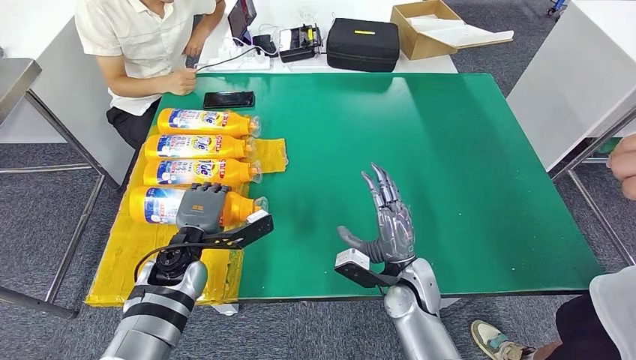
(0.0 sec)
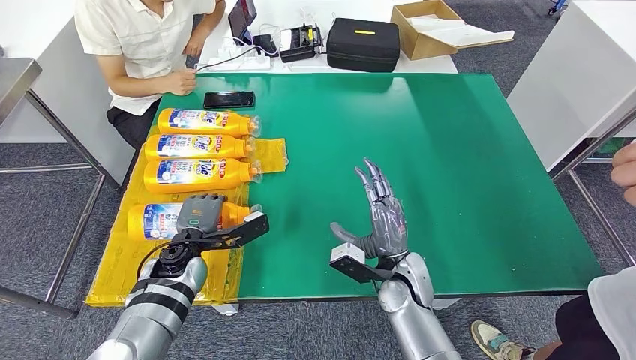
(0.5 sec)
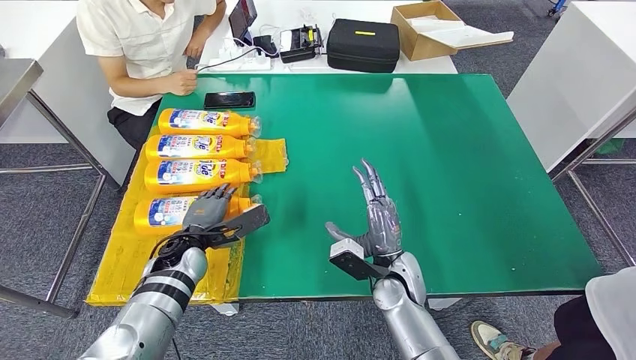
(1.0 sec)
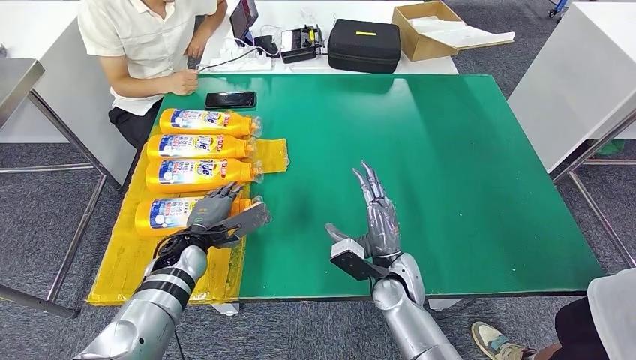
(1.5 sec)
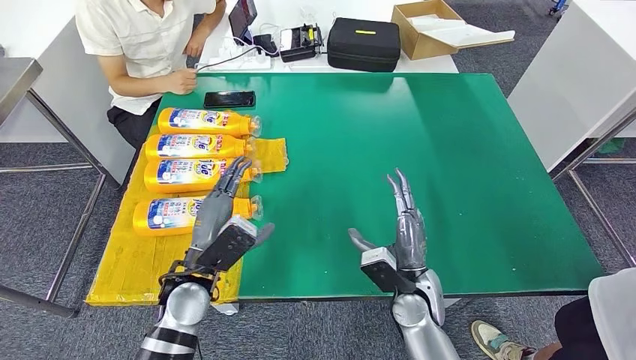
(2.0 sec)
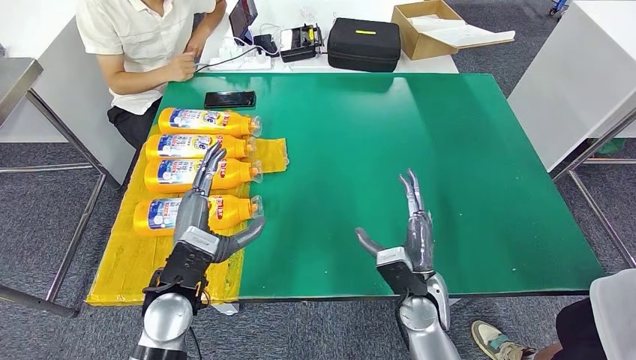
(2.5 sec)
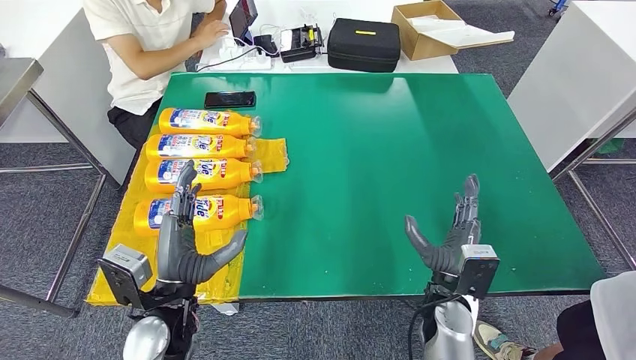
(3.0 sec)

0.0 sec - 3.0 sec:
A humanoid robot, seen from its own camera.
Step, 0.0 sec - 3.0 sec: Flip the fast-moving consumer goods bottle to the front side.
1.5 sec - 3.0 sec: The right hand is displaced to the right by some 5 cm. Meanwhile the left hand travels backward and upward by about 15 cm.
